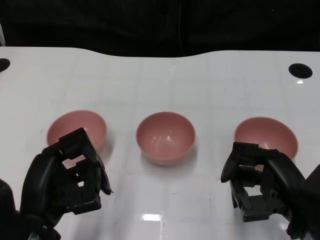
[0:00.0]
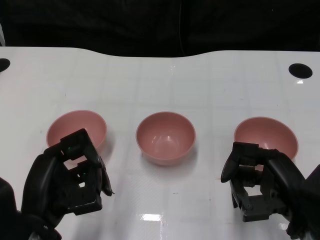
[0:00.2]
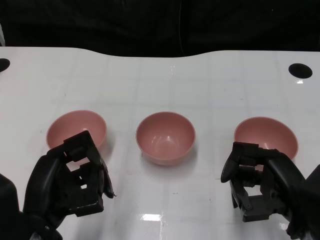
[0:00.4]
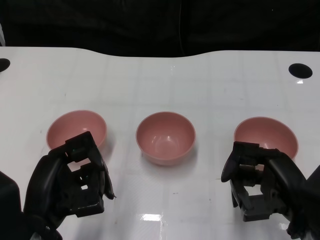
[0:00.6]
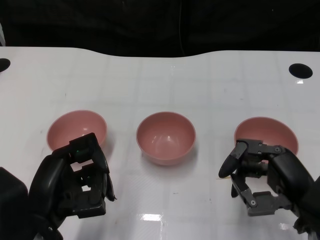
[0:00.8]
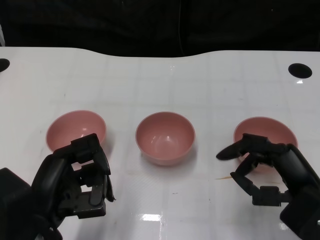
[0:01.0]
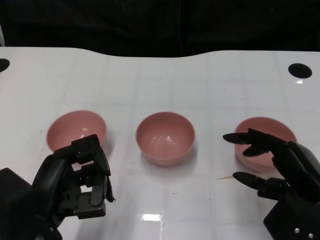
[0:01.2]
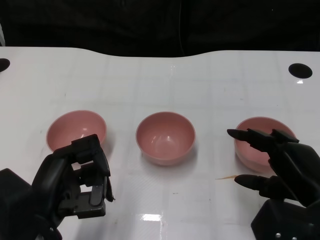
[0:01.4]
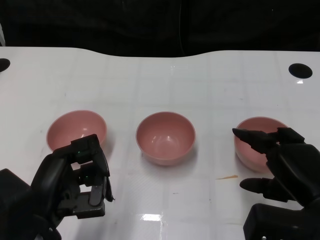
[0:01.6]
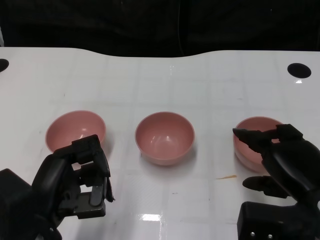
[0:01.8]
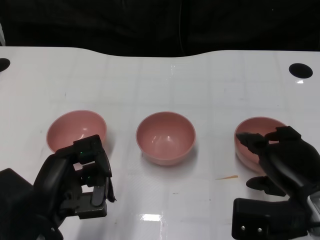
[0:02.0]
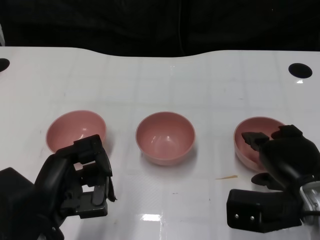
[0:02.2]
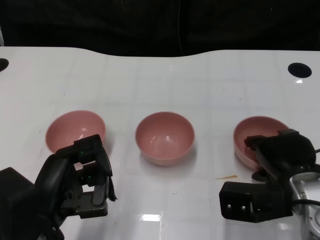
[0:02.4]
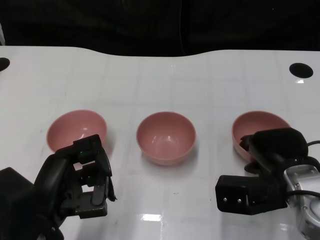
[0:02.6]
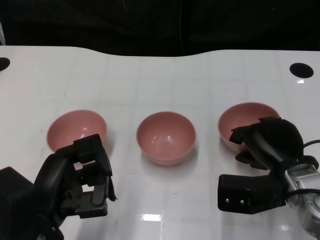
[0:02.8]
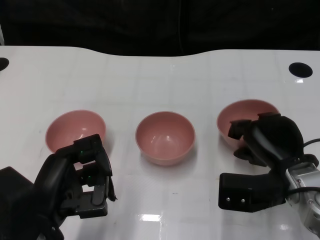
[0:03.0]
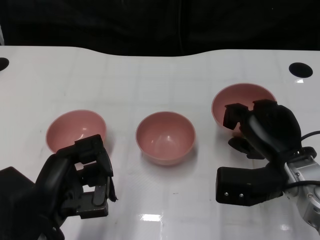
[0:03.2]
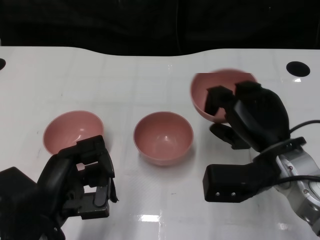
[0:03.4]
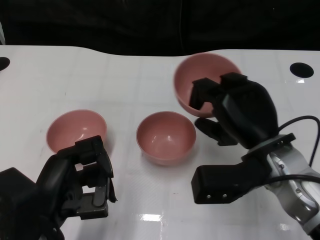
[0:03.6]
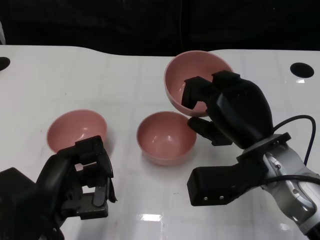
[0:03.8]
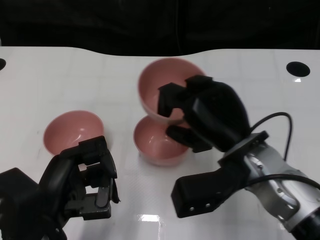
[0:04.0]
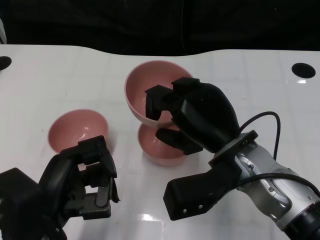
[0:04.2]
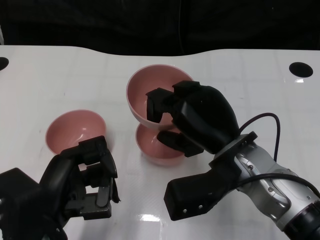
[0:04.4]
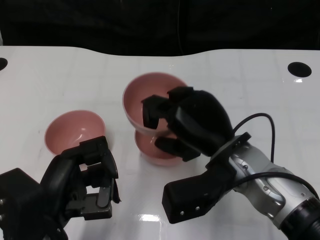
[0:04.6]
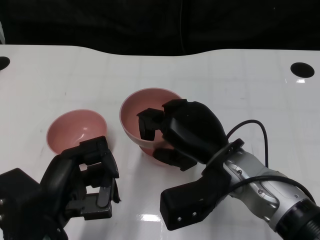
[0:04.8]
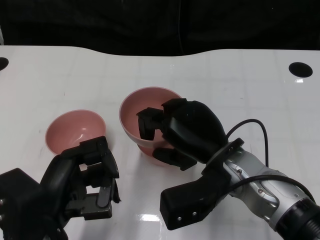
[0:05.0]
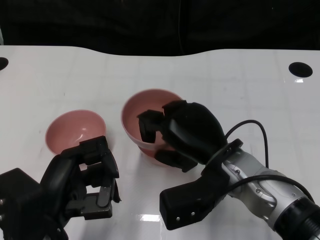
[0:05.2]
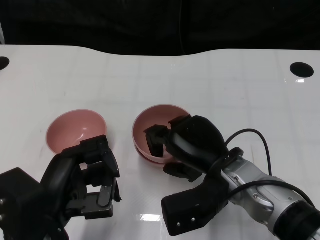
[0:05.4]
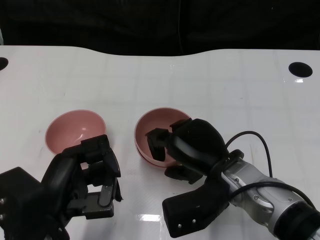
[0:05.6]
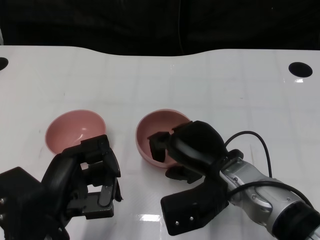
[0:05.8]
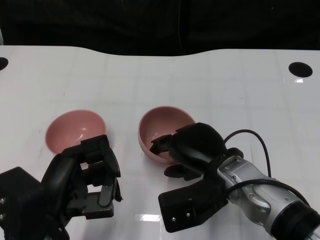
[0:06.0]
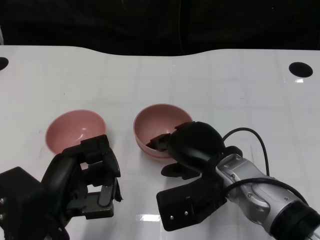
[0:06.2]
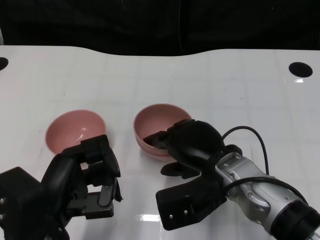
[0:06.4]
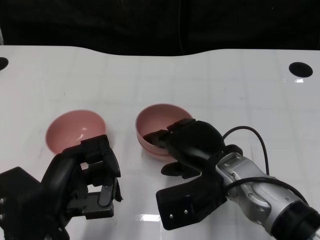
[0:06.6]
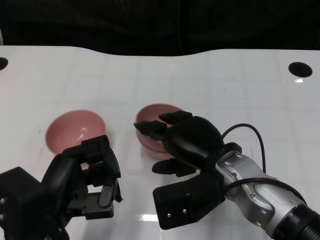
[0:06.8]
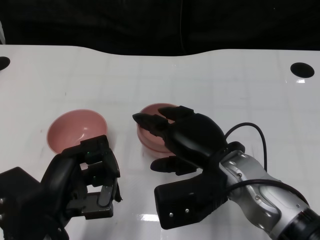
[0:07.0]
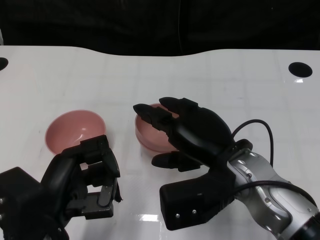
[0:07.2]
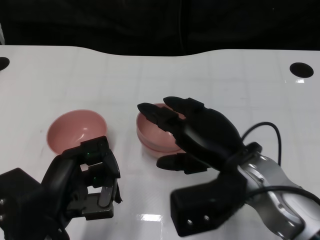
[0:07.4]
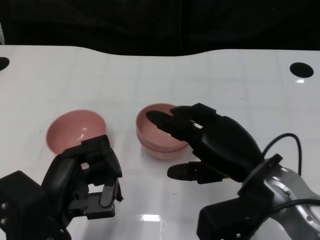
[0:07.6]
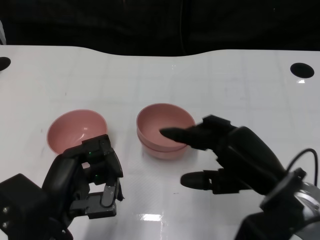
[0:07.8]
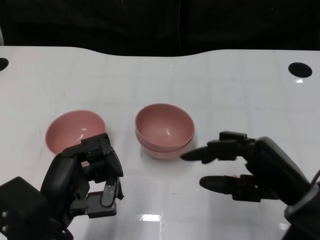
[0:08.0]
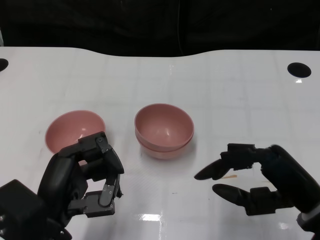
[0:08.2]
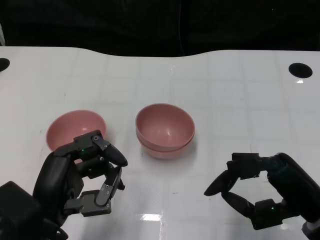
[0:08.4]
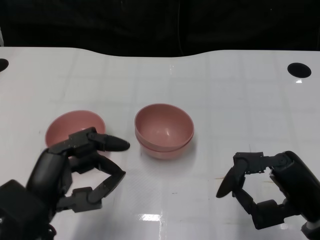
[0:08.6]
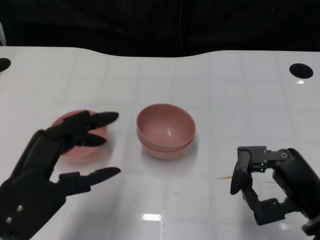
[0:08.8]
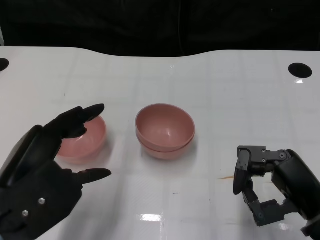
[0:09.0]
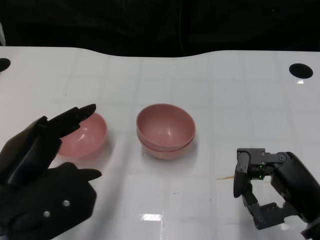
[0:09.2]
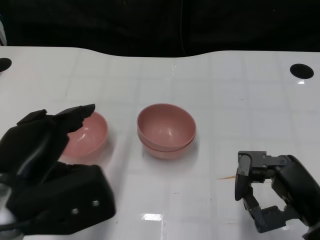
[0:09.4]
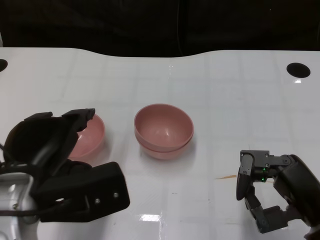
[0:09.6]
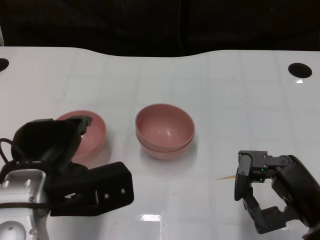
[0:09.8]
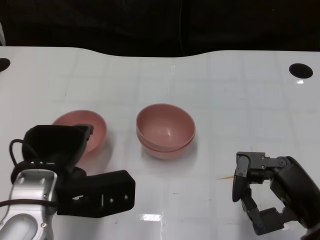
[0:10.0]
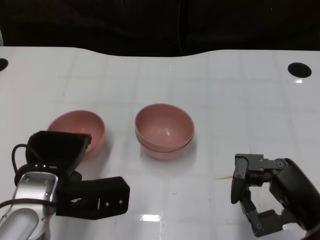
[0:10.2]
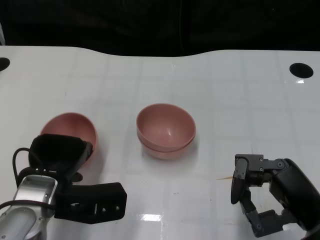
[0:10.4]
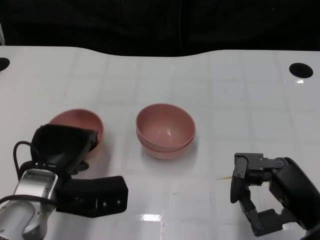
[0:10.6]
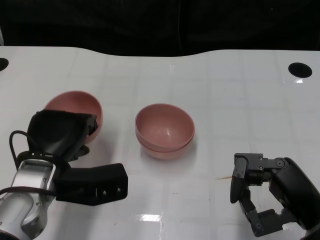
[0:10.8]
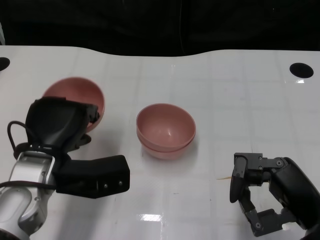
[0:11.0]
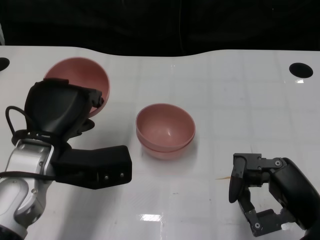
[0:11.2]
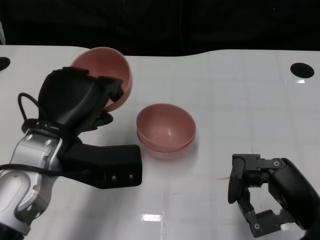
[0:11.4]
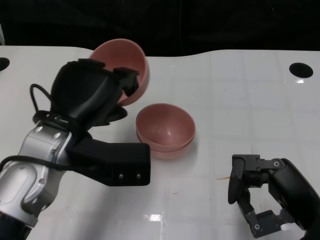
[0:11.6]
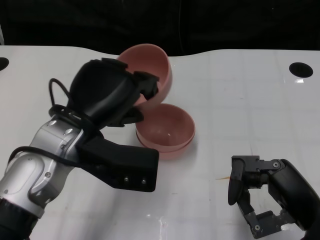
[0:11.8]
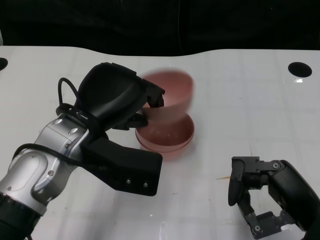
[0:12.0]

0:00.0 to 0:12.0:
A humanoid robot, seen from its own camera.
Task of the whole recording: Pick up the bowl on one side of the table and place it on top of the middle bowl, then pick up the bowl on the other side of the table and place it on top of the middle bowls.
Step, 0:00.8 to 0:02.6: Grasp the bowl on the right with the right gripper.
Step, 0:02.8 to 0:07.6: Place the bowl on the right onto the bowl in the middle with right gripper.
Step, 0:07.8 to 0:10.6: Grasp the bowl on the left with the left gripper.
0:01.6 to 0:03.0: The right hand is displaced forward by approximately 5 cm.
0:03.0 to 0:04.4: The right hand is displaced to the left and upward by roughly 10 cm.
0:06.0 to 0:07.6: The right hand changes place by roughly 5 cm.
0:07.6 to 0:09.0: The left hand travels upward by approximately 5 cm; the right hand travels to the right by some 10 cm.
0:09.0 to 0:10.4: The left hand moves downward and forward, roughly 10 cm.
0:10.4 to 0:12.0: The left hand moves upward and to the right, approximately 10 cm.

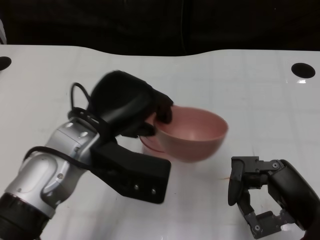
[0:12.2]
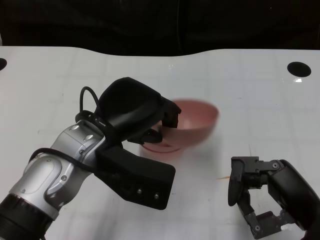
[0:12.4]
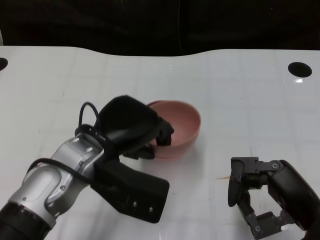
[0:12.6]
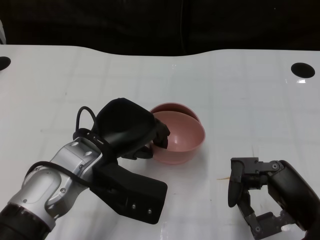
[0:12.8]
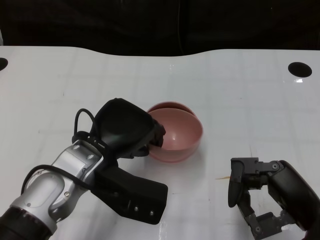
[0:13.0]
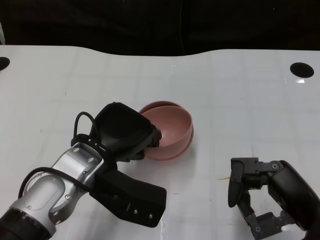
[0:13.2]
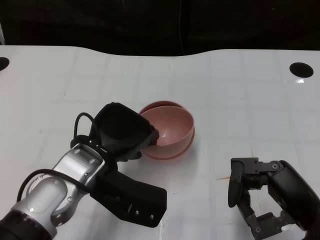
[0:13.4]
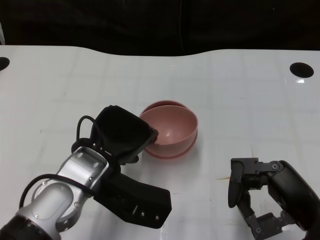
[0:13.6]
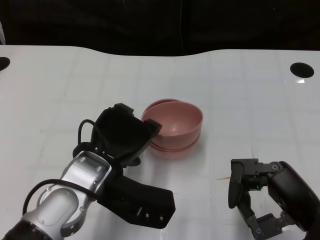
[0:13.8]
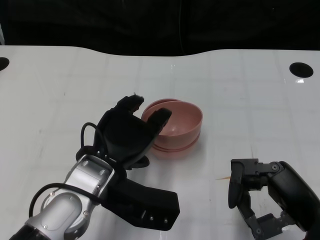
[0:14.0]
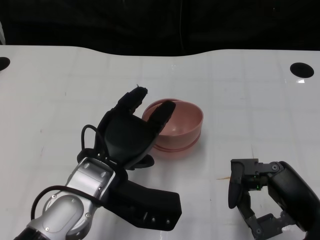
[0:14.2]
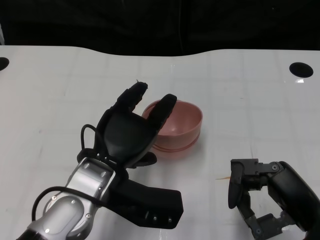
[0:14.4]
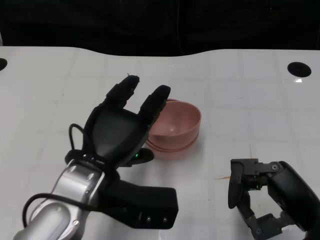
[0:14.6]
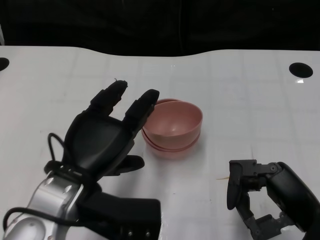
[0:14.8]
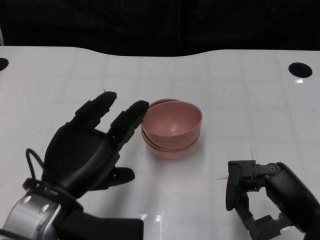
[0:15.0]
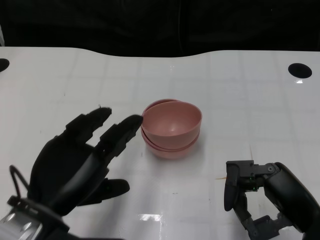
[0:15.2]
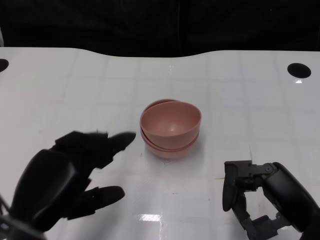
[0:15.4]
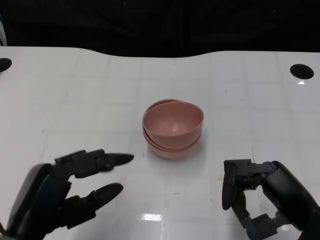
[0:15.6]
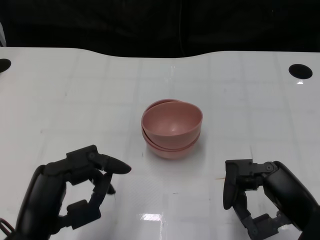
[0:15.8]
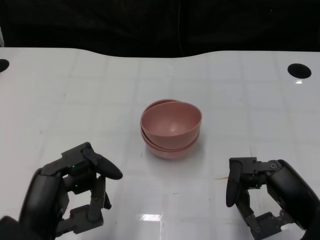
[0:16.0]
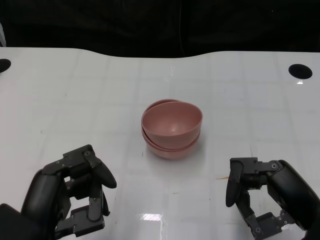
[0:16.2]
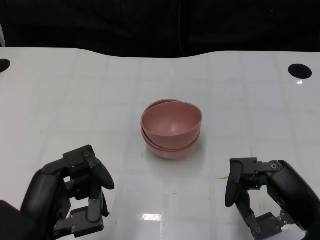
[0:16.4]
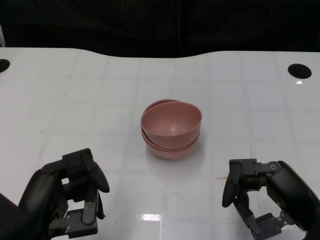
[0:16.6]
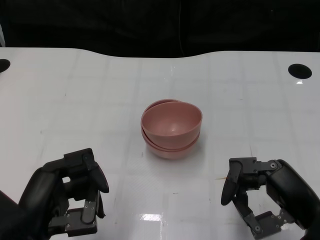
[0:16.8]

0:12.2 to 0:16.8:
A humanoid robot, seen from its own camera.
Task of the whole recording: Pick up the bowl on one side of the table and place it on top of the middle bowl, then pick up the bowl on the other side of the table and place it on top of the middle bowls.
Step, 0:12.2 to 0:14.6: Place the bowl on the left onto the bowl in the middle with left gripper.
0:12.2 to 0:13.8: The left hand changes place by some 5 cm.
0:13.8 to 0:15.2: The left hand heads backward and to the left, covering approximately 10 cm.

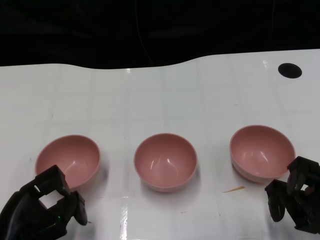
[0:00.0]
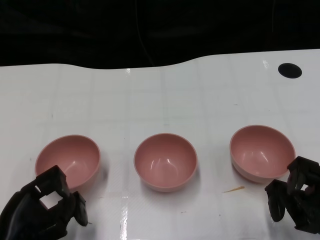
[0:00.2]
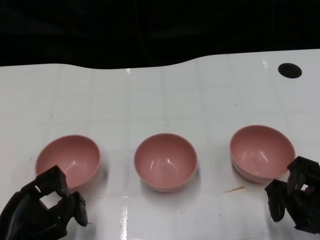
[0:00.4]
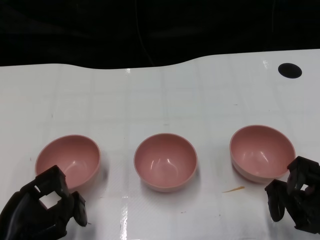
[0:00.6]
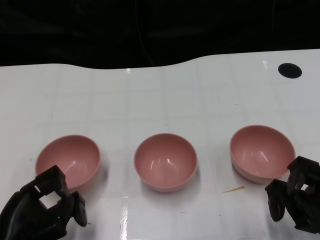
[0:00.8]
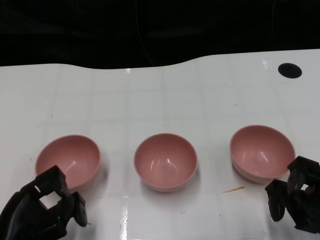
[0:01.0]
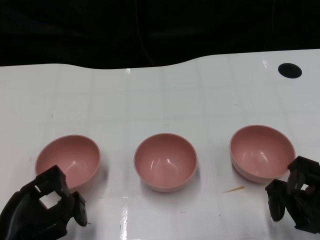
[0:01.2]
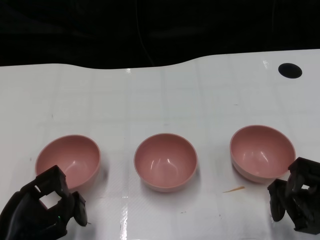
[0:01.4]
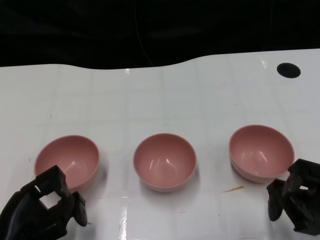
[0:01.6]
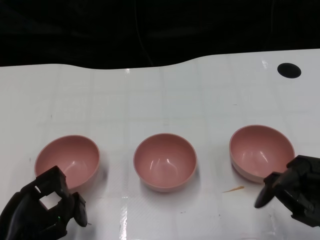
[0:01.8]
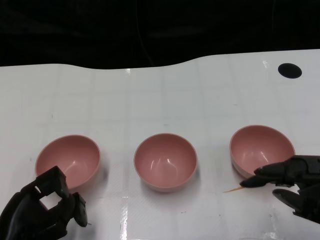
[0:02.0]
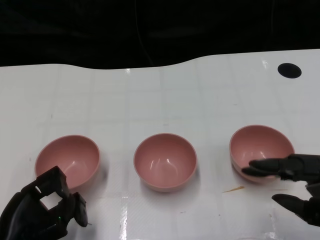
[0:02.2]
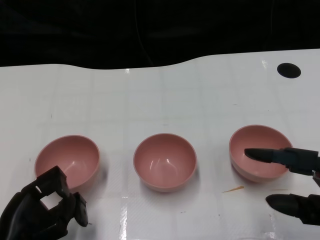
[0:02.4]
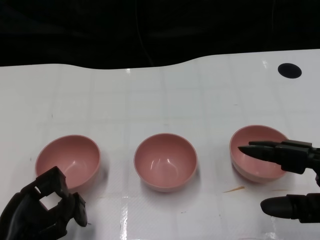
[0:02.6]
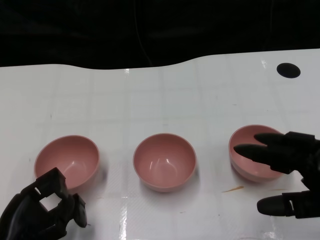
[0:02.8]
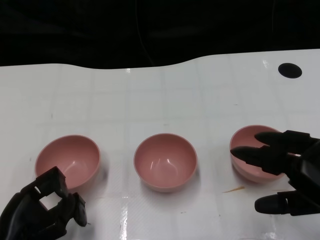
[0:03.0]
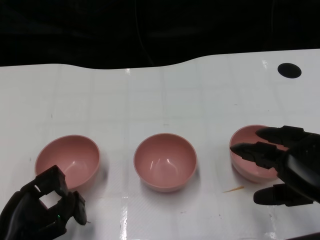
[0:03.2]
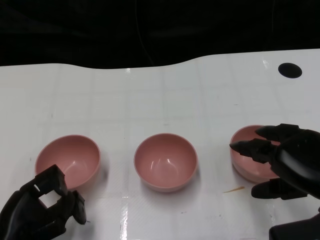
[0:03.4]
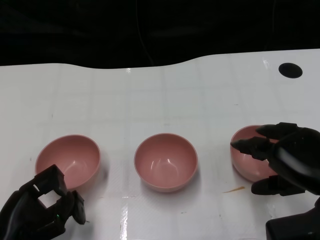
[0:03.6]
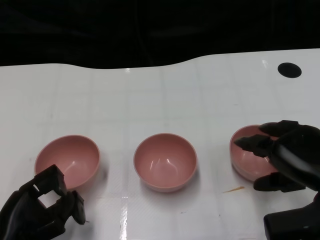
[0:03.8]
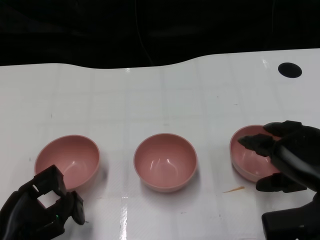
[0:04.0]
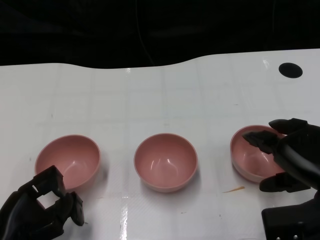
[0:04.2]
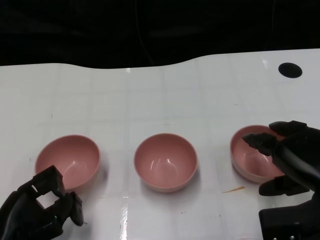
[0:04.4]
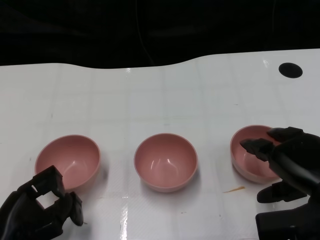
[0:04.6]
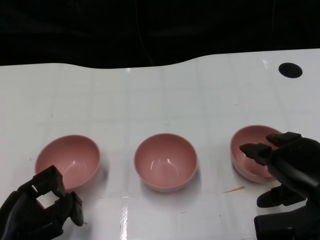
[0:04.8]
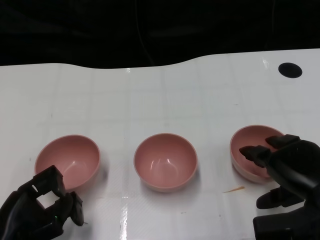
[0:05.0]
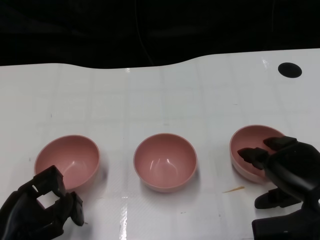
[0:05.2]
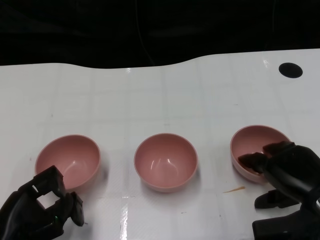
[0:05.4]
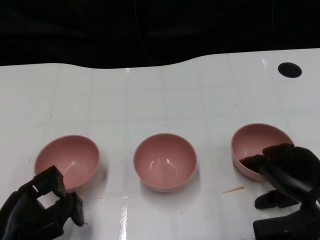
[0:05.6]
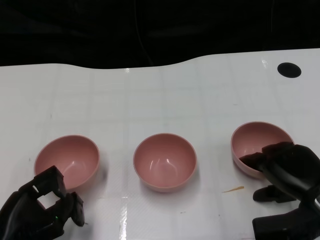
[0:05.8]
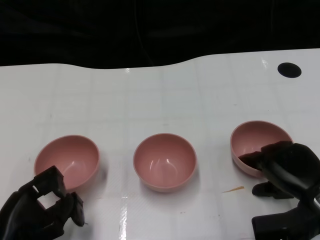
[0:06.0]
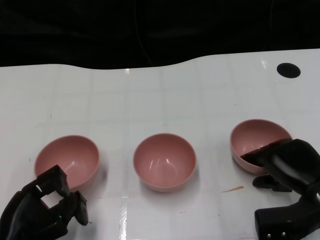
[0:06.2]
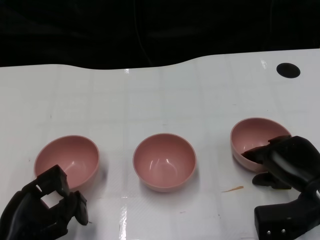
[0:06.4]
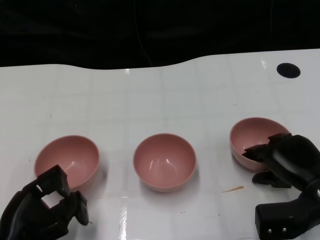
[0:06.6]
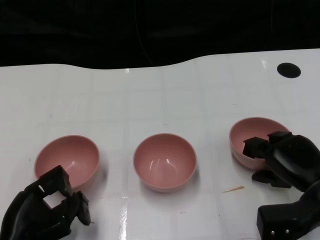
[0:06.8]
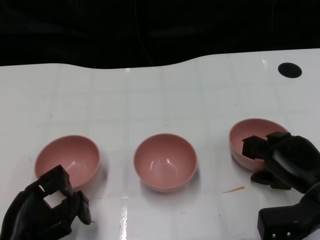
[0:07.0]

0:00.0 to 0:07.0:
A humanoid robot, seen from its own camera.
Task of the whole recording: Pick up the bowl on one side of the table and place it on top of the middle bowl, then pick up the bowl on the other side of the table and place it on top of the middle bowls.
0:01.4 to 0:02.8: The right hand moves upward, some 10 cm.
0:02.8 to 0:04.2: The right hand shifts approximately 5 cm forward.
0:04.2 to 0:05.6: The right hand is displaced downward by about 5 cm.
0:05.6 to 0:07.0: There are only small adjustments of the hands.
